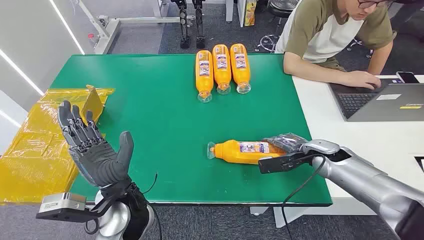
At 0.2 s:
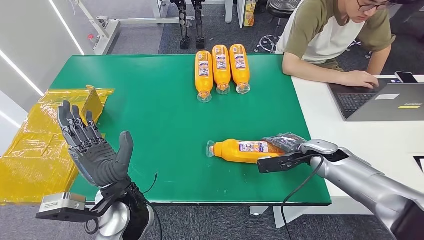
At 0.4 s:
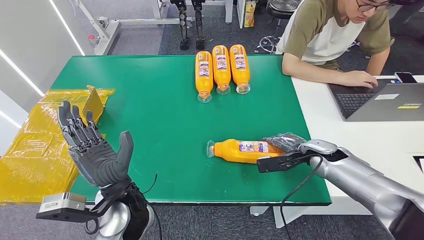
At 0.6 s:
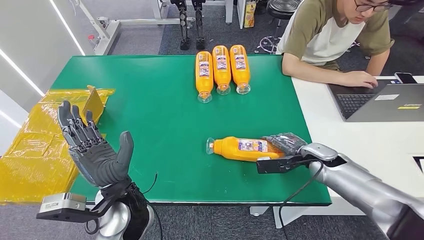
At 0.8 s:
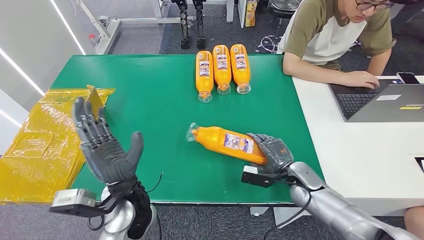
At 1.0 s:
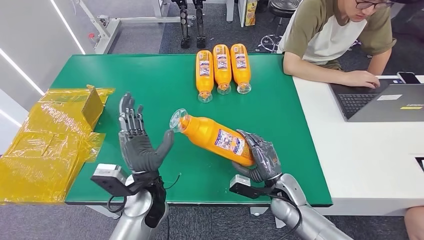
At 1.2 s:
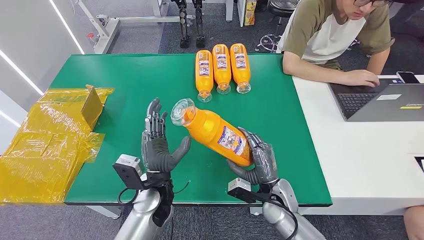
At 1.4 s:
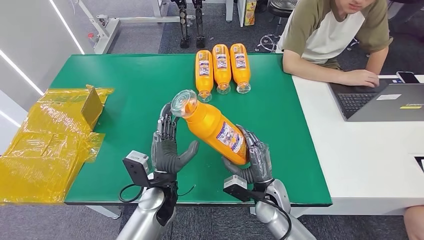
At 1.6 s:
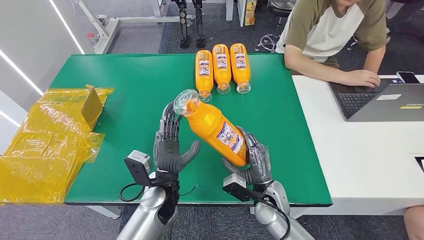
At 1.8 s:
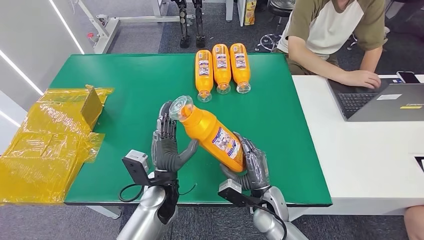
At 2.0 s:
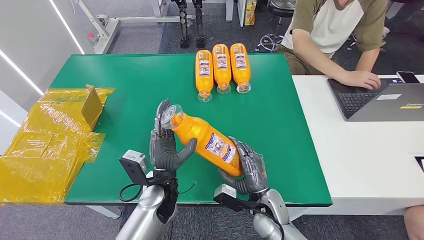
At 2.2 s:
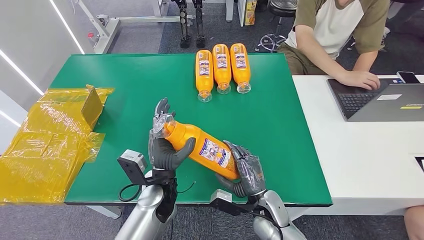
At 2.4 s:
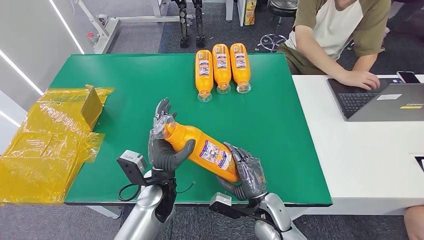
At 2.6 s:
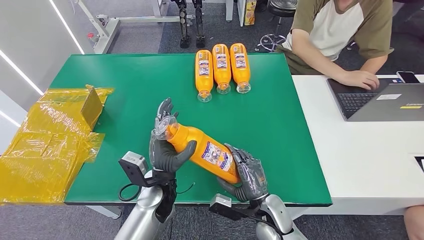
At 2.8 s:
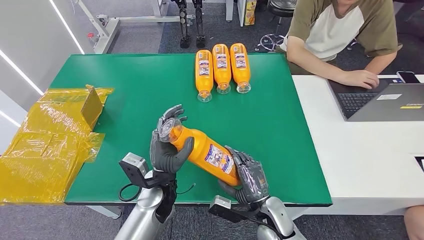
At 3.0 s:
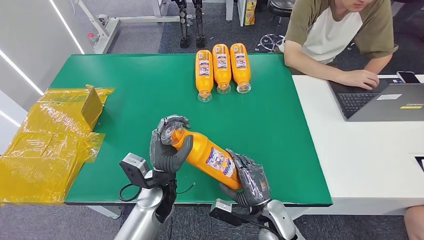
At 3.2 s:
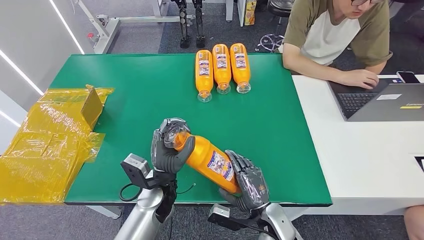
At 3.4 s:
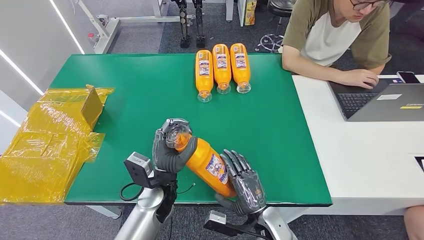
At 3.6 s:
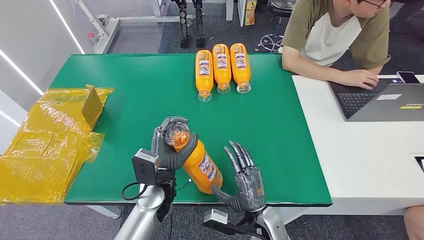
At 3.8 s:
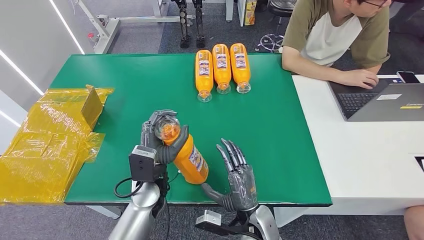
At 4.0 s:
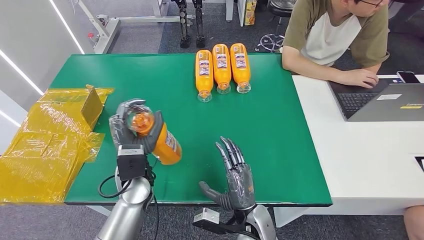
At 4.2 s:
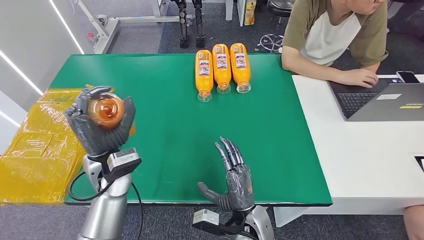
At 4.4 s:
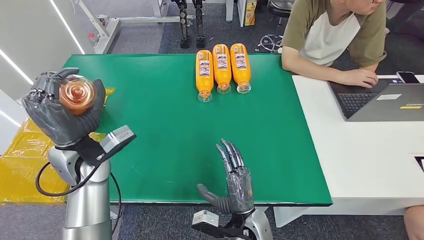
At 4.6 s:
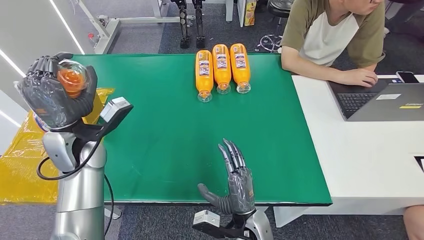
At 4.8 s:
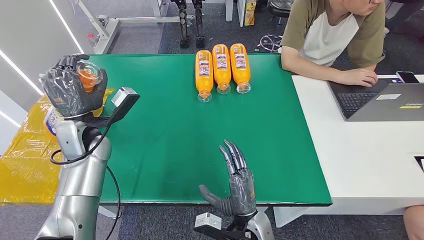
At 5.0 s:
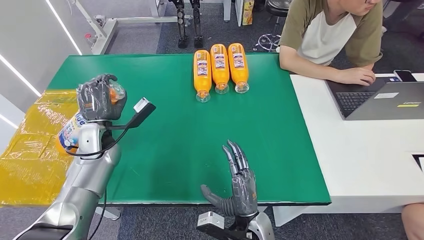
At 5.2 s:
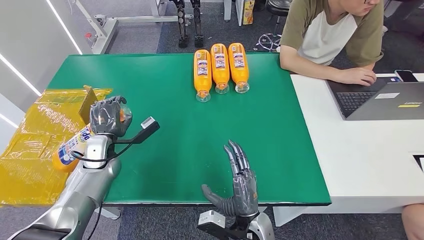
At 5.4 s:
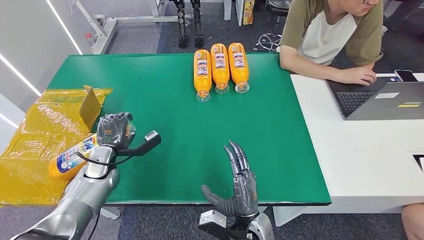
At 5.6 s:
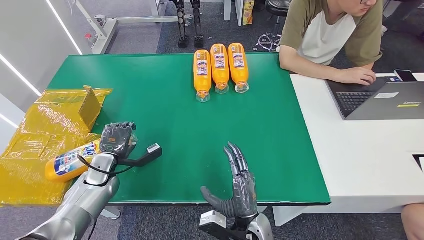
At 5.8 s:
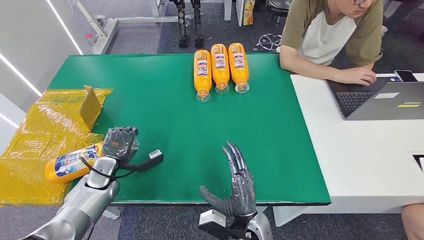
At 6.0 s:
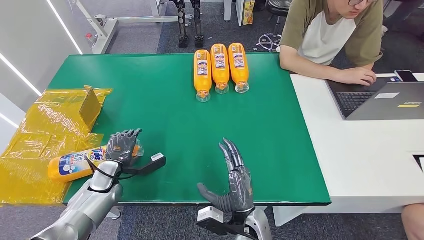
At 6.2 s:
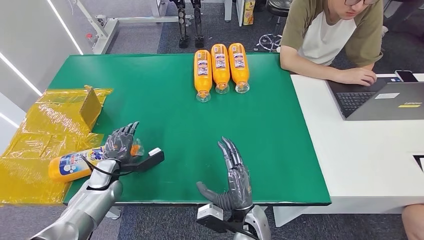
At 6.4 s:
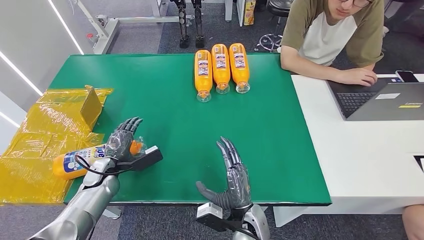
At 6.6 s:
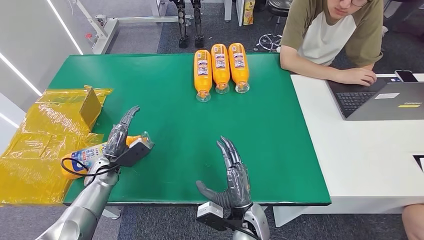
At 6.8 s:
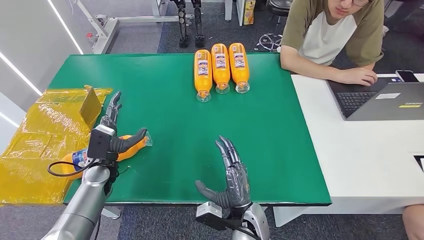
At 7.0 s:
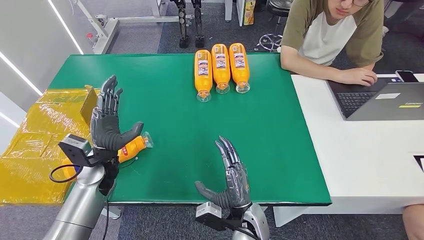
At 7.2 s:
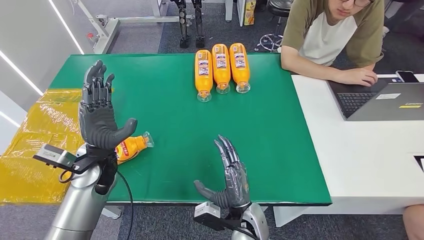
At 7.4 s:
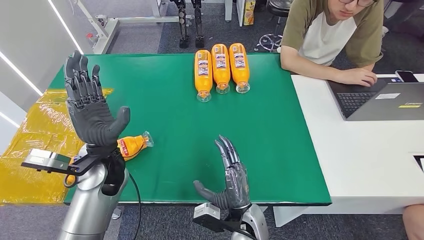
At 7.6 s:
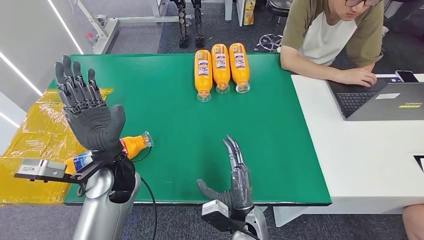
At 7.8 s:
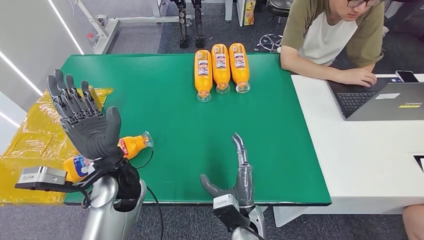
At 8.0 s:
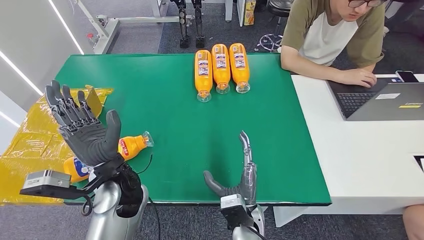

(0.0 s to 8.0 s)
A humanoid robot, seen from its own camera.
Step, 0.0 s - 2.0 s: Pick up the bottle from the table.
Step, 2.2 s - 8.0 s: Turn the bottle to the front side.
1.6 s - 3.2 s: The right hand heads backward, covering roughly 5 cm.
3.2 s - 4.8 s: The right hand travels to the left by roughly 5 cm, while the left hand is displaced to the left, forward and upward by approximately 25 cm.
4.8 s - 6.4 s: The left hand heads downward and backward, covering some 20 cm.
6.4 s - 8.0 s: The left hand is displaced to the right and upward by some 25 cm.
